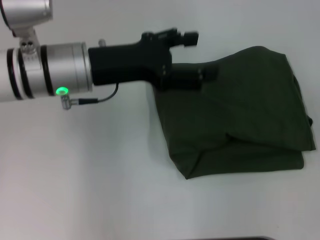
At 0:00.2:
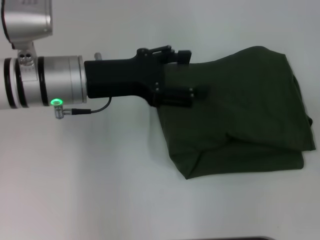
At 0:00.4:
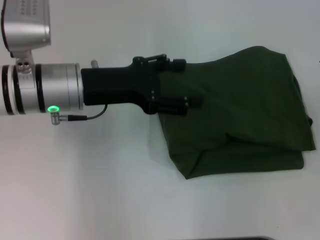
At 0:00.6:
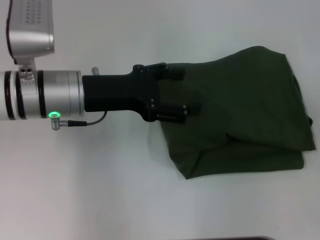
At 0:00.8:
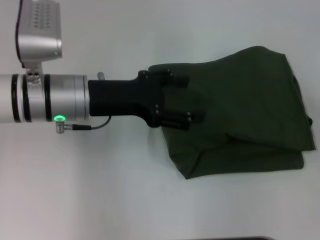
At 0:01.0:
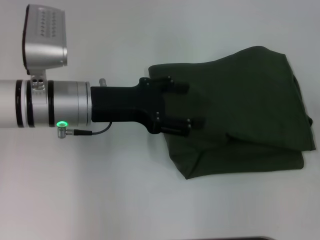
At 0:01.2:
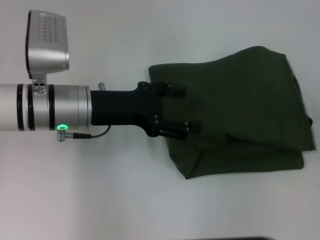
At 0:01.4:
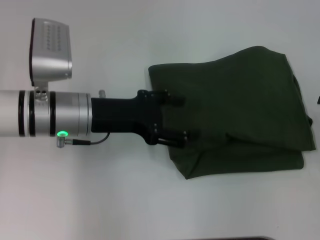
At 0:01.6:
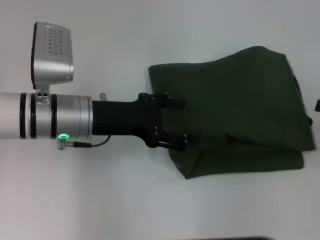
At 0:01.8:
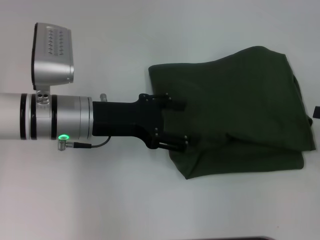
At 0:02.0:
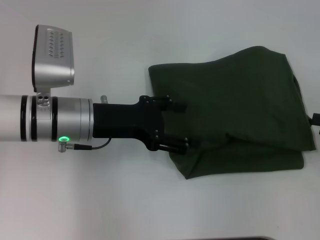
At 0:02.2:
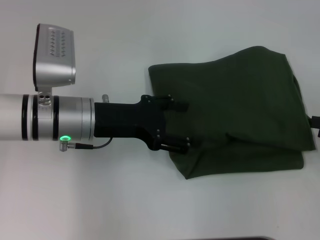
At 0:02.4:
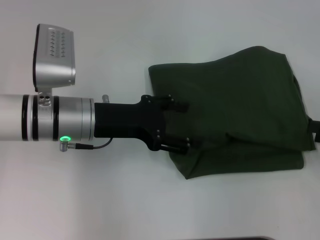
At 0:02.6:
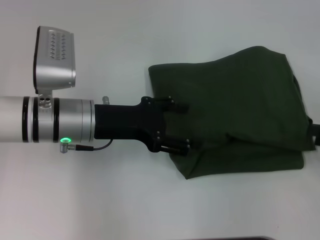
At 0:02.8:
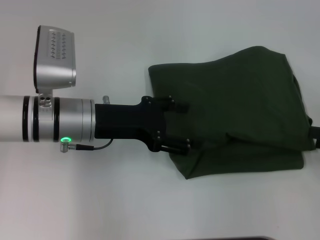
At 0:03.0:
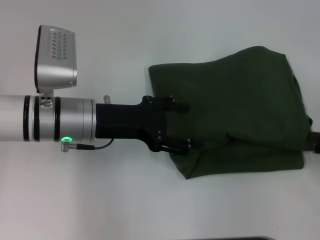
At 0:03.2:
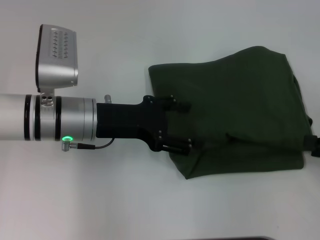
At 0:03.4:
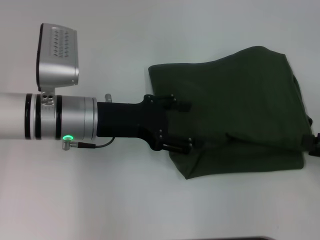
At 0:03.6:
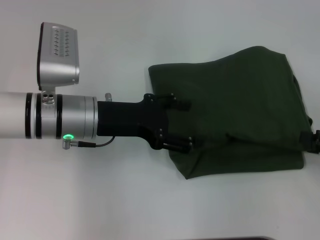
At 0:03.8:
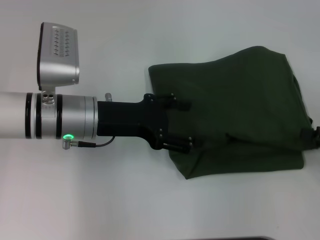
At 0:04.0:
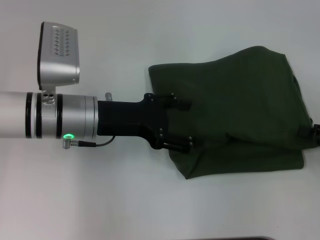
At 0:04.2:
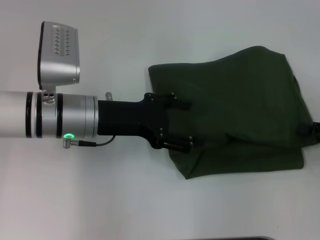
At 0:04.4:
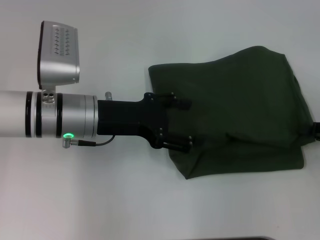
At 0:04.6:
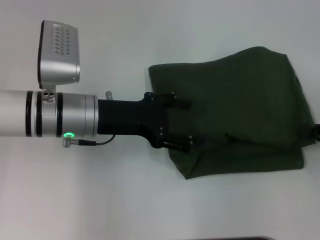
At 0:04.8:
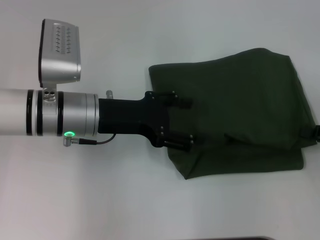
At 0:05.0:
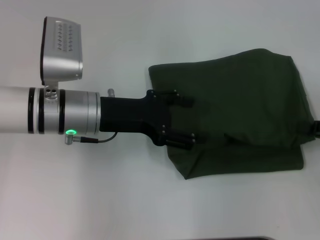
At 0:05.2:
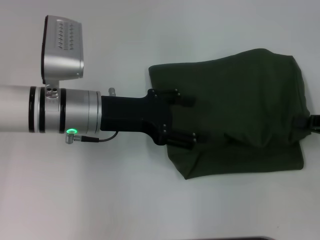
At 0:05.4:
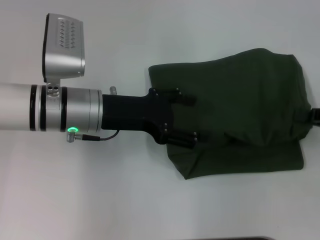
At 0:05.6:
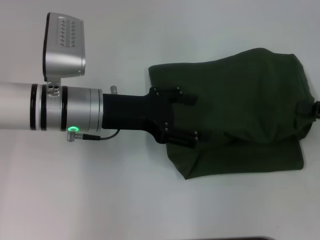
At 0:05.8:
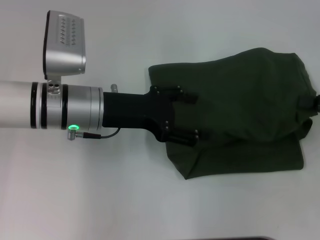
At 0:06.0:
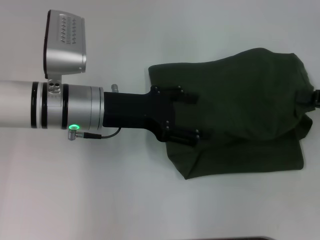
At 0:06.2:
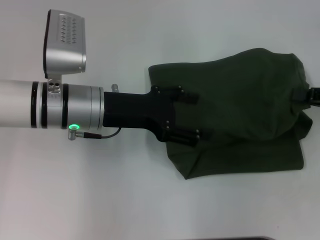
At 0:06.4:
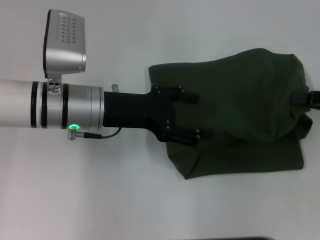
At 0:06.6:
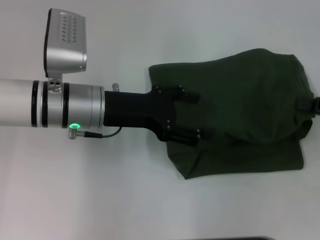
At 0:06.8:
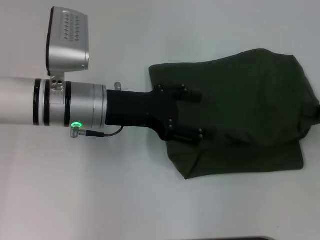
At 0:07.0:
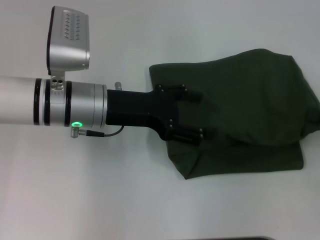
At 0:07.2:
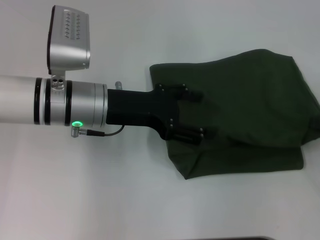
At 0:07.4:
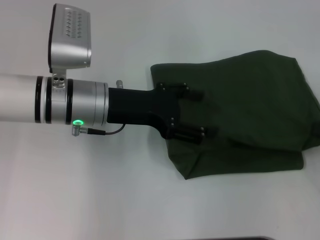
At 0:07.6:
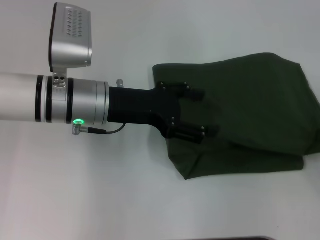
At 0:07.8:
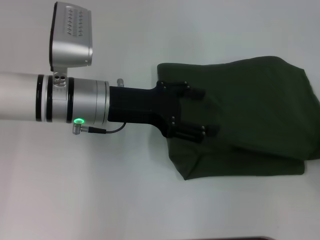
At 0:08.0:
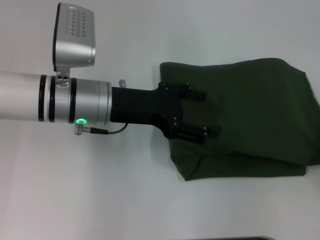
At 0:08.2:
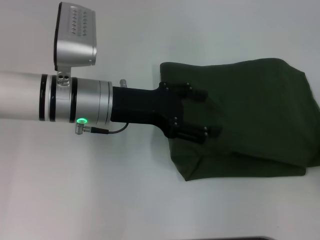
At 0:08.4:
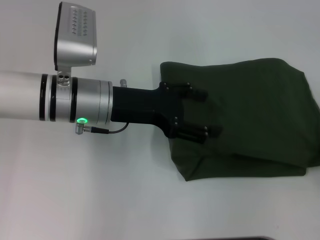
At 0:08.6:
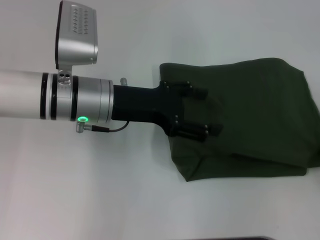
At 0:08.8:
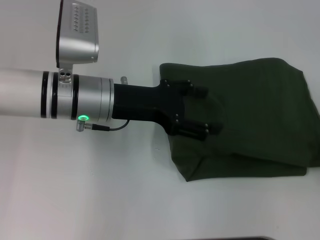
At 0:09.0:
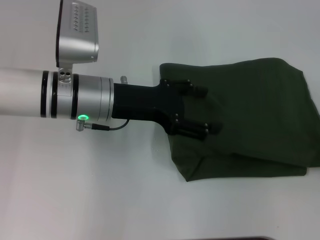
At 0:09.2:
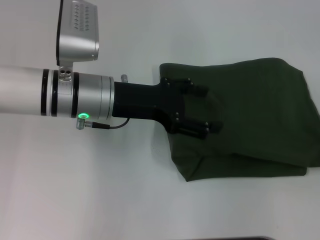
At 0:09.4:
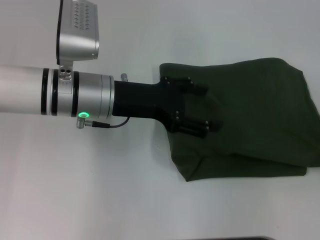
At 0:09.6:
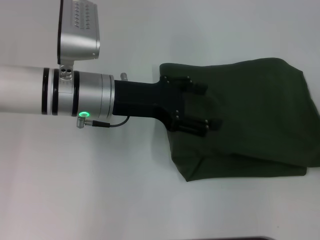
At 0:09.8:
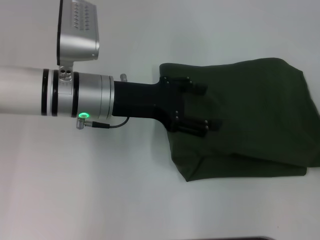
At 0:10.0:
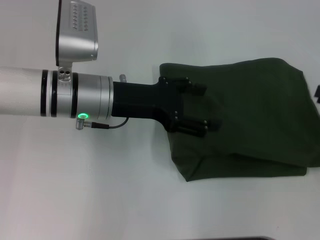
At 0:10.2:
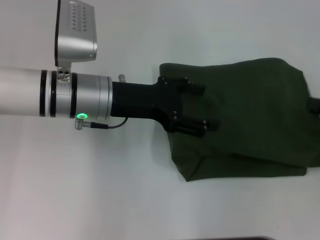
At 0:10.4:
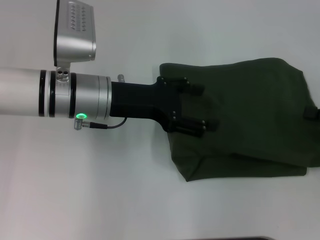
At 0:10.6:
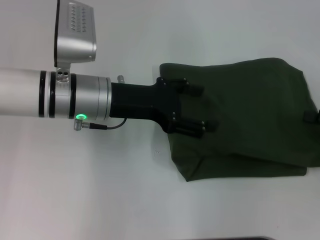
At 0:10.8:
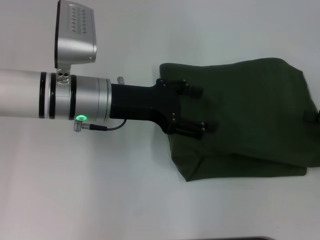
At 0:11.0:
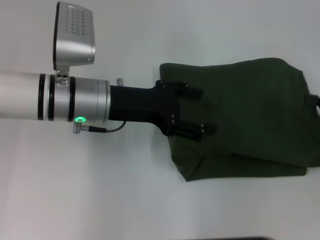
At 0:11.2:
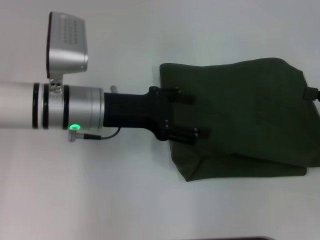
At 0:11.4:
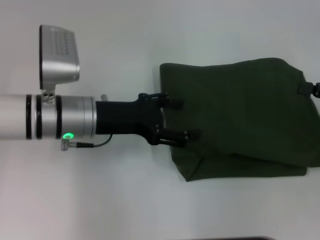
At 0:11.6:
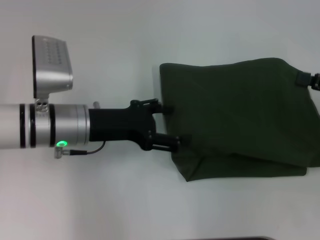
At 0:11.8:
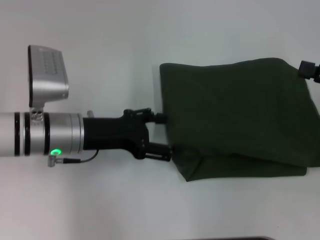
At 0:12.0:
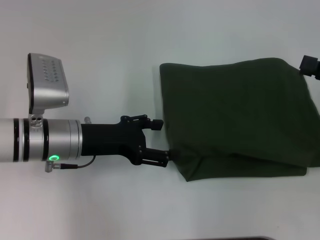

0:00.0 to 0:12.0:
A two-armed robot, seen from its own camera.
0:00.0 to 0:01.6: Both grippers move downward, roughly 5 cm.
0:01.6 to 0:03.0: The grippers stay close to where they were, moving slightly.
0:03.0 to 0:04.4: The right gripper closes up.
0:04.4 to 0:06.0: The right gripper ends up about 5 cm from where it was, and closes.
0:06.0 to 0:07.6: The right gripper shifts about 5 cm backward.
0:07.6 to 0:09.0: The grippers stay close to where they were, moving slightly.
0:09.0 to 0:10.4: The right gripper is displaced forward by some 5 cm, and opens, then closes once more.
0:10.4 to 0:12.0: The left gripper shifts by roughly 10 cm.

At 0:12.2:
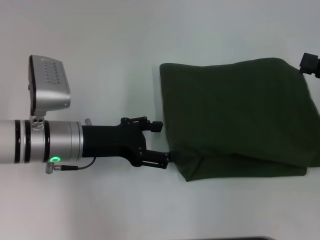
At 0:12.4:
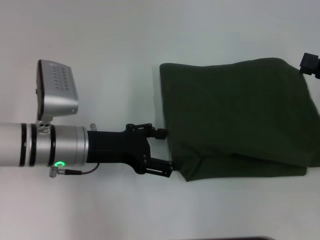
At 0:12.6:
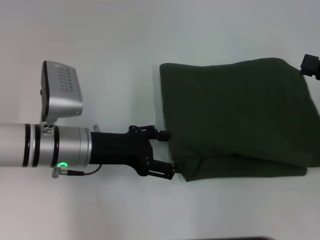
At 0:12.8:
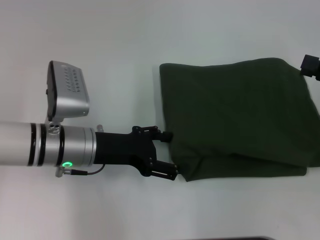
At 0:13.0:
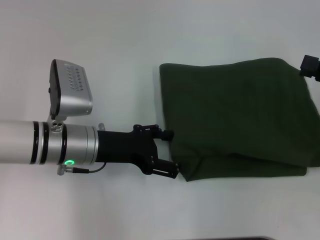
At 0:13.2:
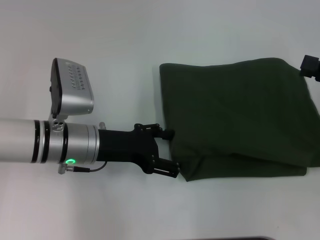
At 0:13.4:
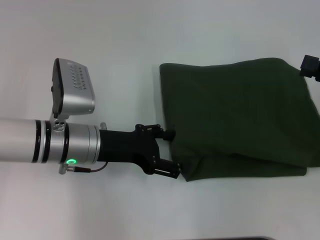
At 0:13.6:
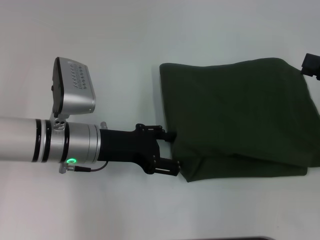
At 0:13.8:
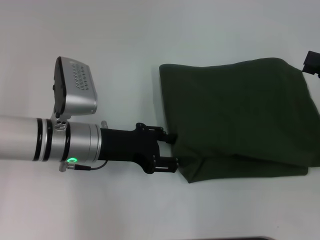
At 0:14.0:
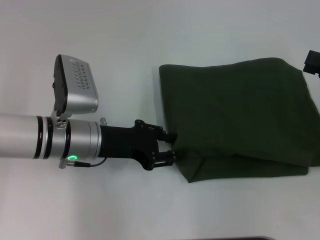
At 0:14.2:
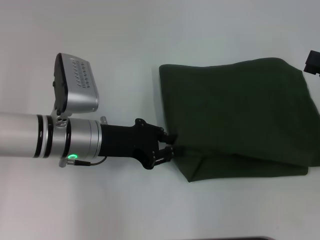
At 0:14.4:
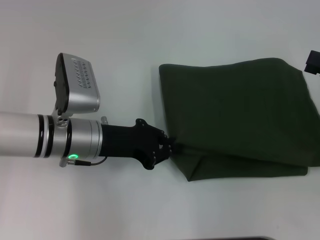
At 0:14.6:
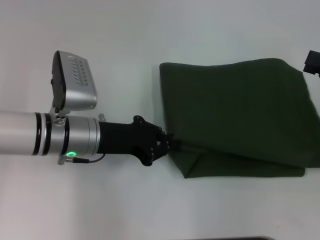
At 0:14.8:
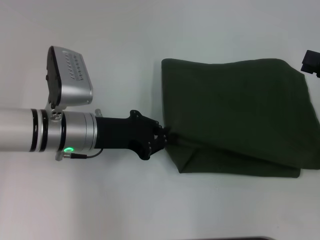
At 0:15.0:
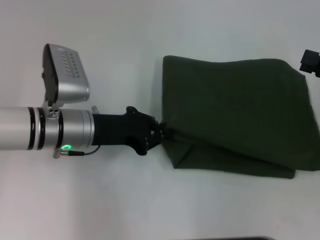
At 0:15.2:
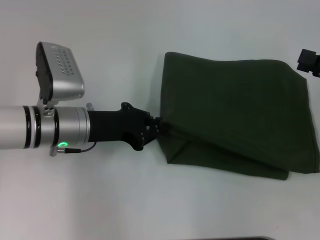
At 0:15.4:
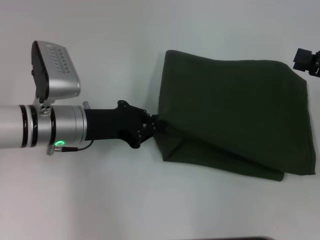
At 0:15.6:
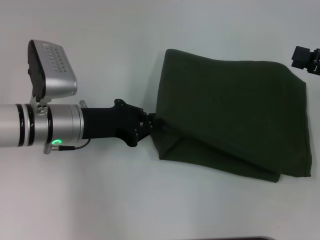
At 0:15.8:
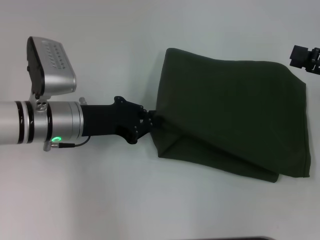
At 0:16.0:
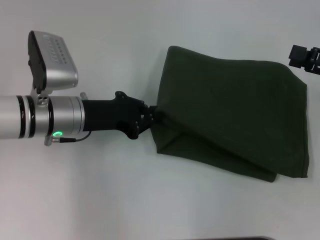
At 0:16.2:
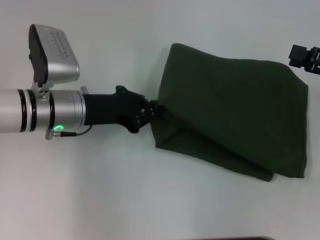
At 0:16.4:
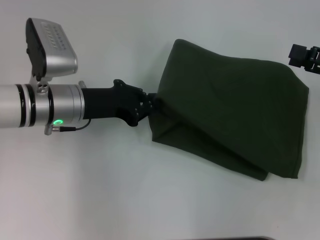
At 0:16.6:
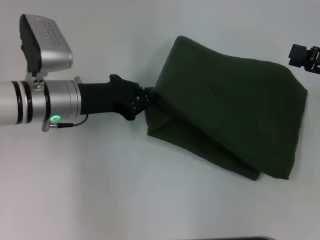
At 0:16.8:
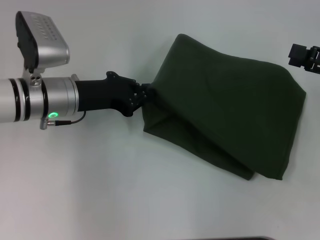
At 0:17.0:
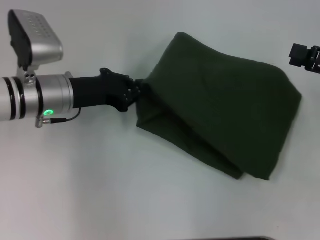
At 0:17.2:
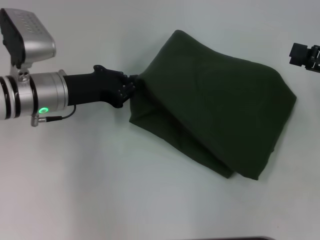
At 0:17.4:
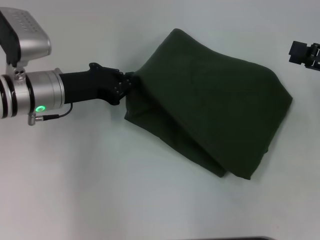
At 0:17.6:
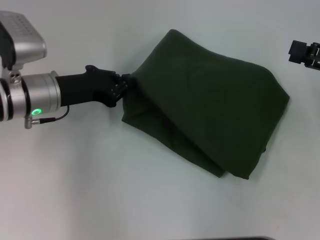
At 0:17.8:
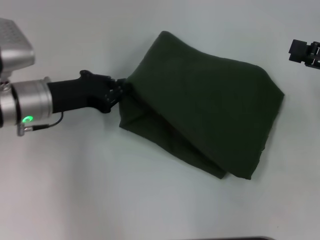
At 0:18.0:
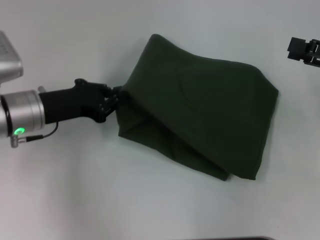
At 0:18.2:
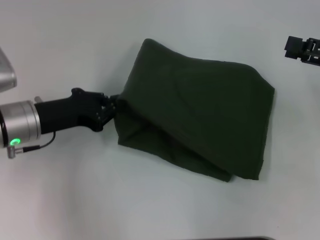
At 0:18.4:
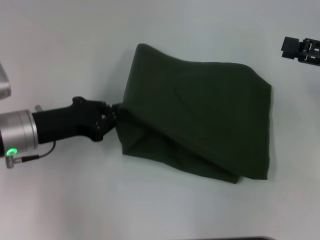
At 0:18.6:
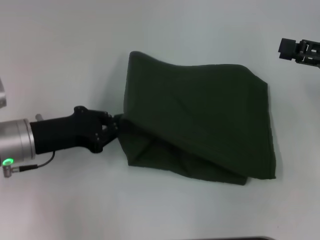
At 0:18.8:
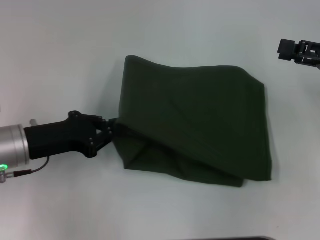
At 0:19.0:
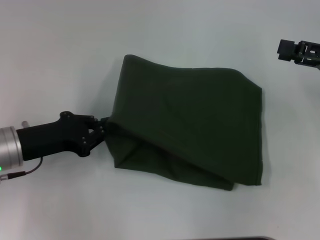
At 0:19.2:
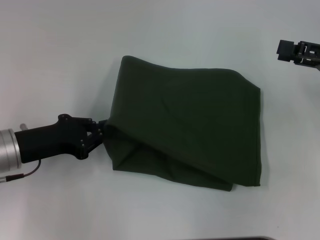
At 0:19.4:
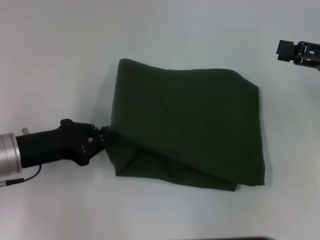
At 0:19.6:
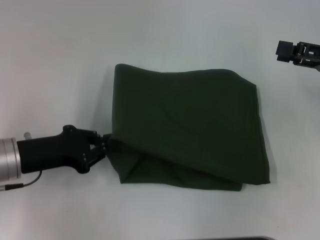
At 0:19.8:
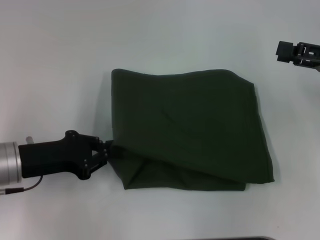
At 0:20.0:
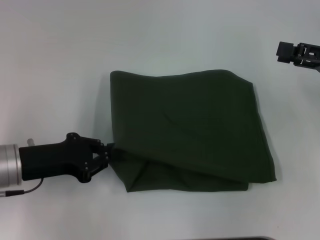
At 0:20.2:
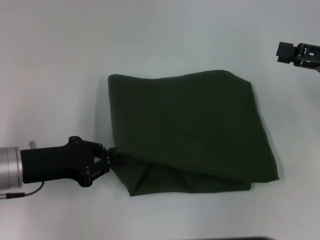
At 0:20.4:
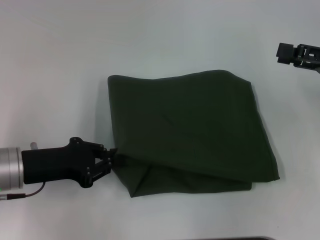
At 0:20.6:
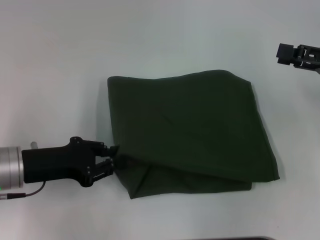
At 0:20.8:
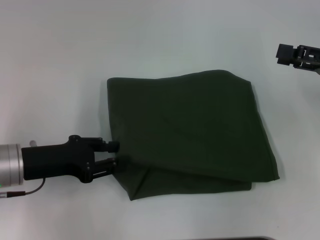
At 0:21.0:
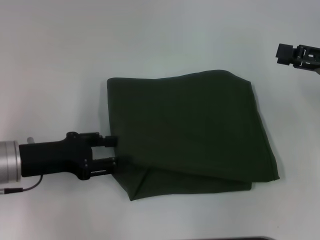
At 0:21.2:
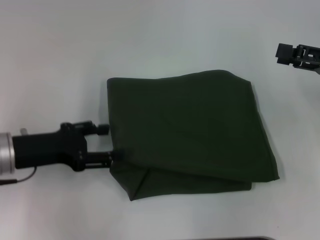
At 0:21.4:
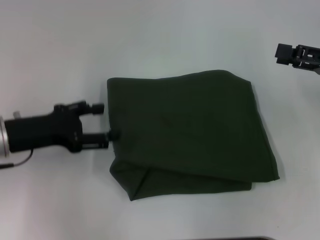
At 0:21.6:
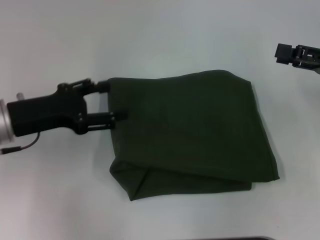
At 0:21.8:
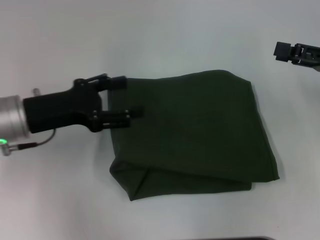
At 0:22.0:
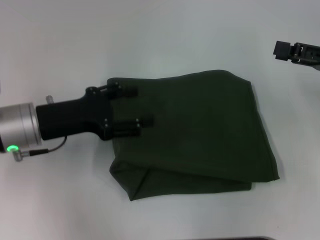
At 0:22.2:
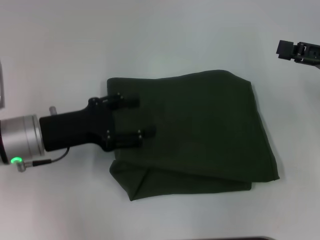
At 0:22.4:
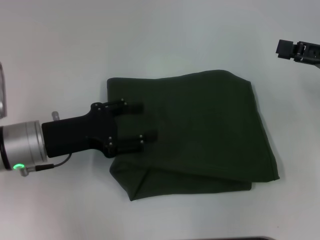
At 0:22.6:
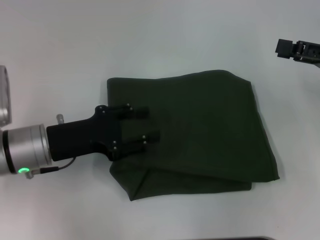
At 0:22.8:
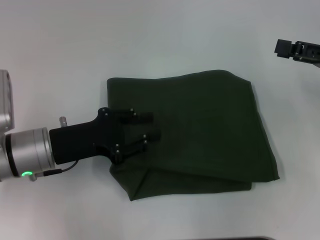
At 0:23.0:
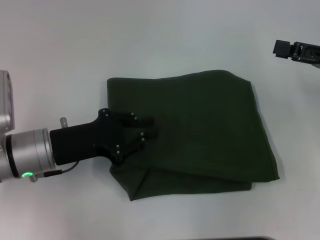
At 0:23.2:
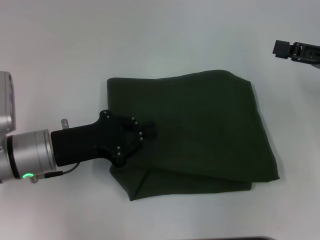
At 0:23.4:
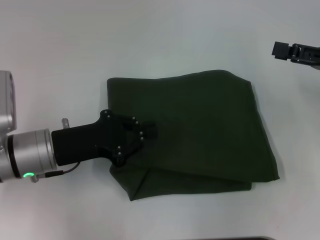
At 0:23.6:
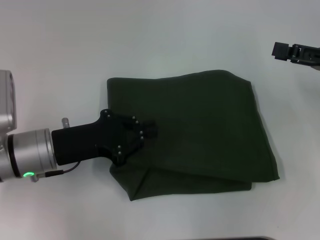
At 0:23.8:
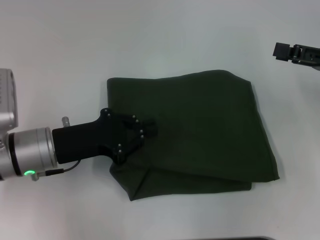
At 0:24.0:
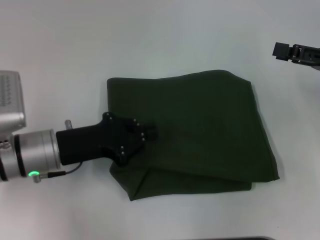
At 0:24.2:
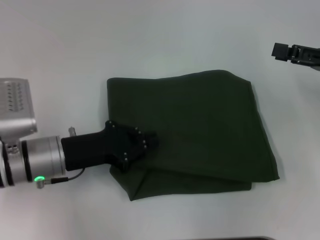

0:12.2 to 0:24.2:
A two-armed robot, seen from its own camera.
0:12.2 to 0:13.8: There are only small adjustments of the grippers.
0:13.8 to 0:15.2: The left gripper closes up.
0:16.6 to 0:18.2: The left gripper heads to the left, covering some 5 cm.
0:18.2 to 0:19.8: The left gripper moves about 5 cm.
0:19.8 to 0:21.2: The left gripper opens.
0:21.2 to 0:22.6: The grippers stay close to where they were, moving slightly.
0:22.6 to 0:24.2: The left gripper closes.
